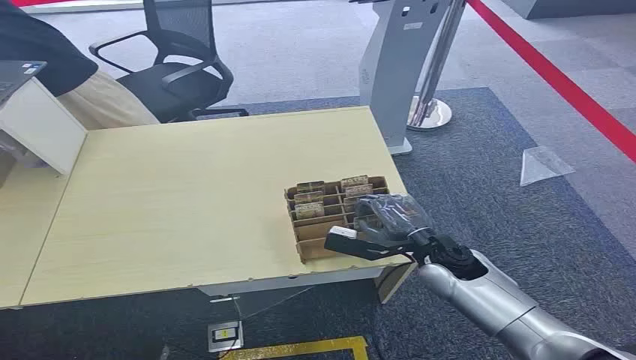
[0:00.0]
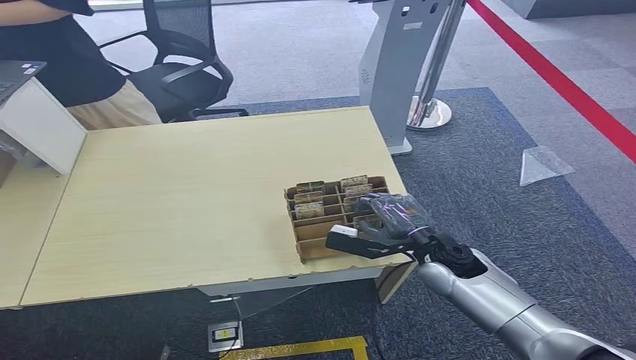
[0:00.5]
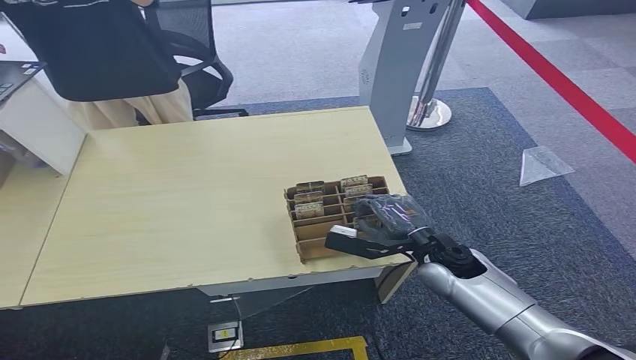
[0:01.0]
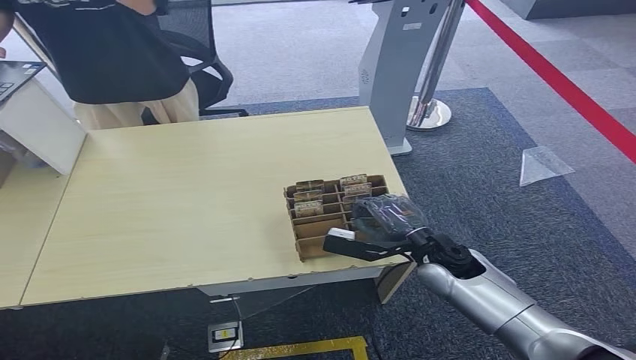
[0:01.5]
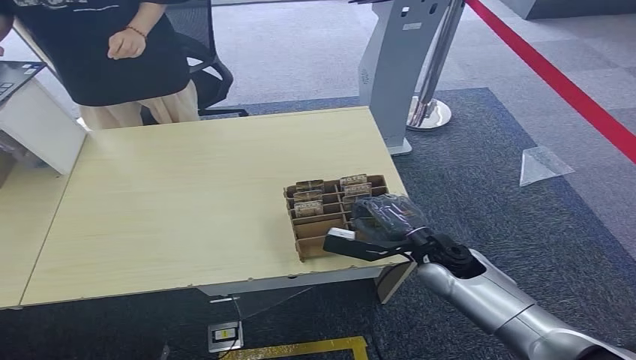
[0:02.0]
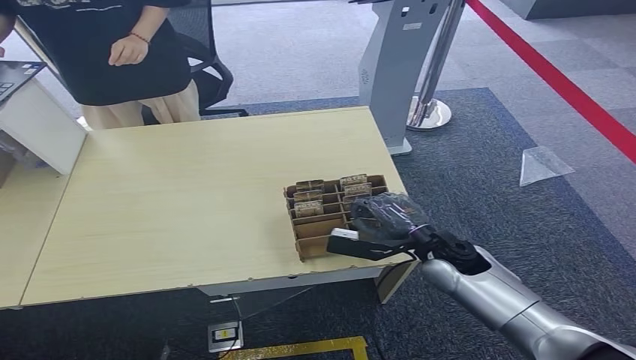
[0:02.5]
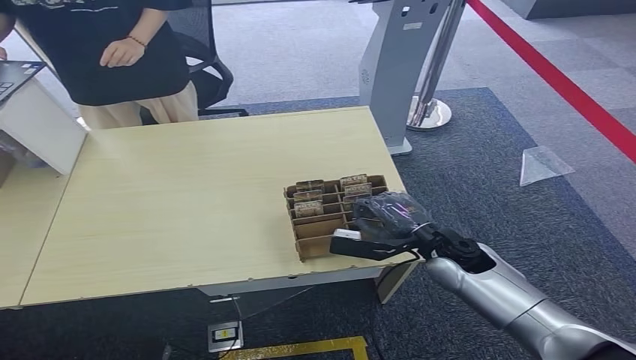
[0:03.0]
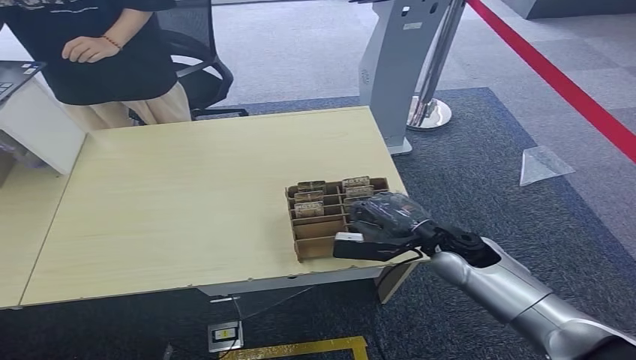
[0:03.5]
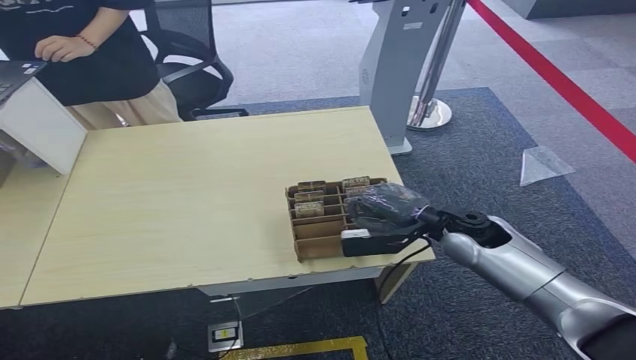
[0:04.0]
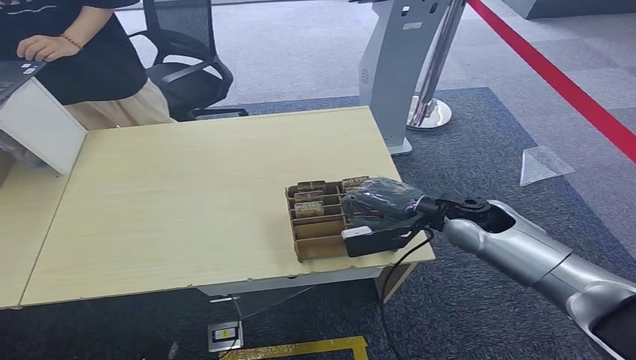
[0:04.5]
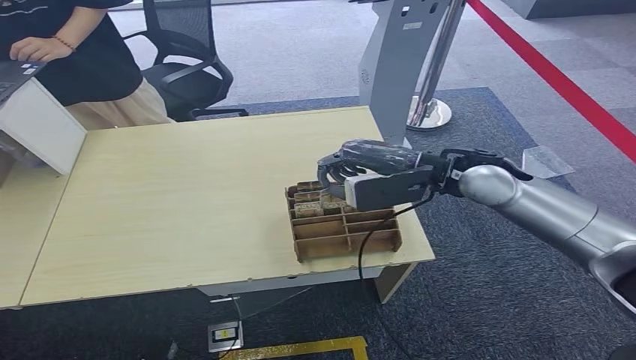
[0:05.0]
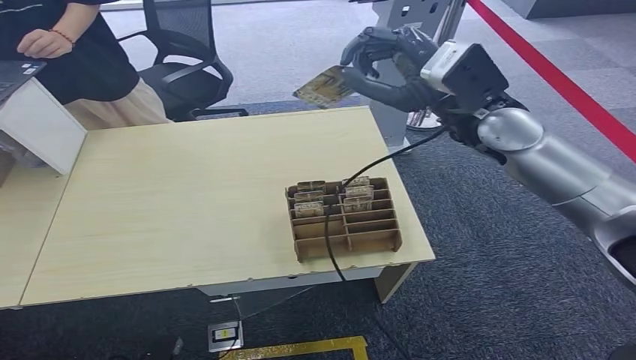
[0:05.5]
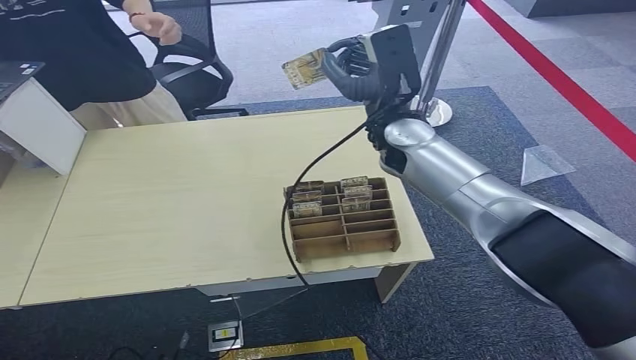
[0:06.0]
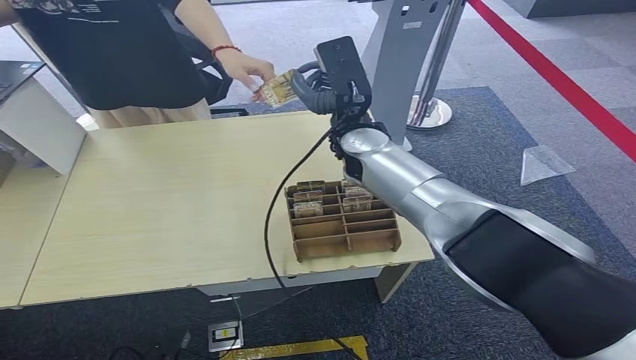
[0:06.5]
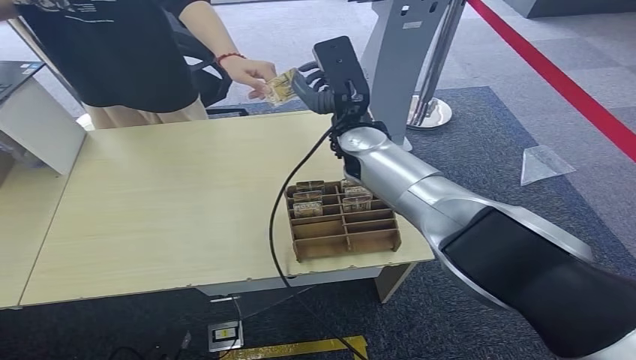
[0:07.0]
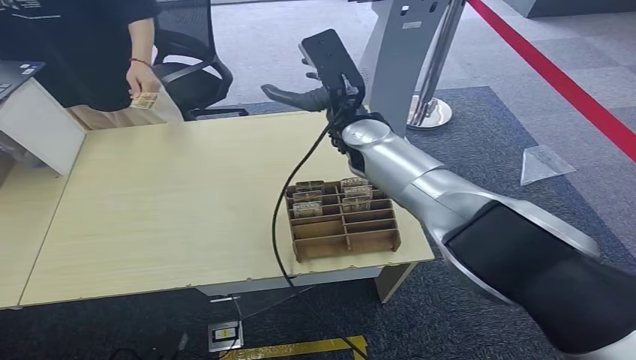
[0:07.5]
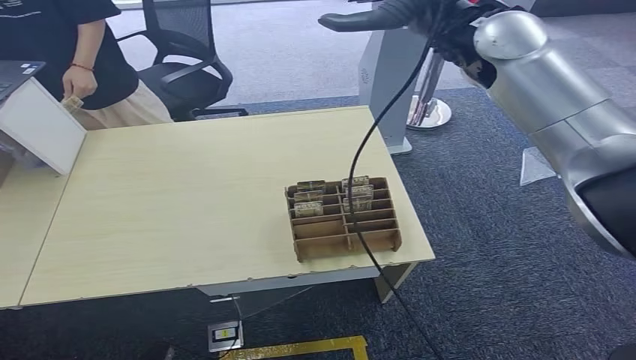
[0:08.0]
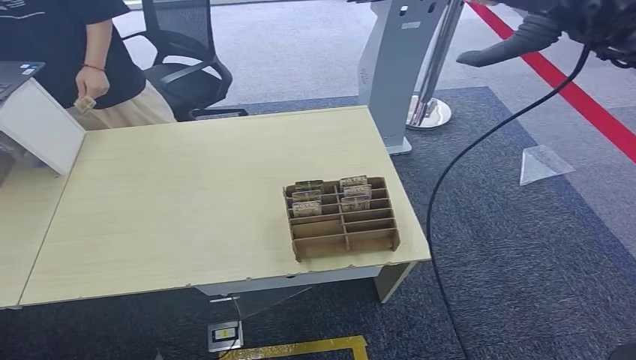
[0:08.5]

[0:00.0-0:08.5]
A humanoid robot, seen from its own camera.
Step, 0:00.0 to 0:05.5: Pick up the key card from the card box.
Step, 0:06.0 to 0:08.5: Hand the key card to the target.
0:02.0 to 0:04.0: The right hand is displaced upward by roughly 5 cm.
